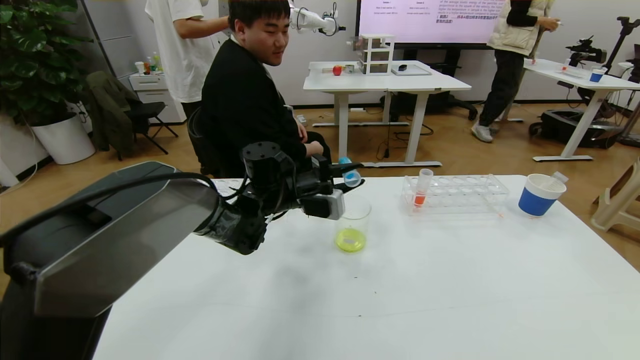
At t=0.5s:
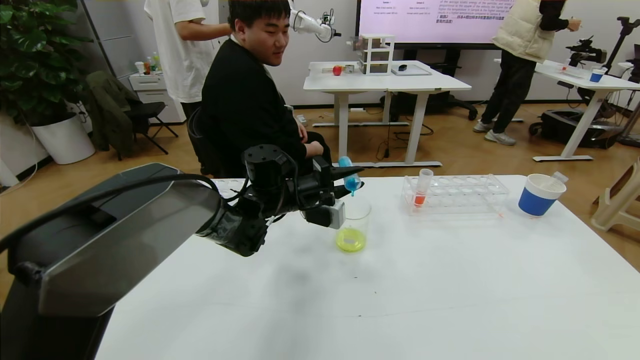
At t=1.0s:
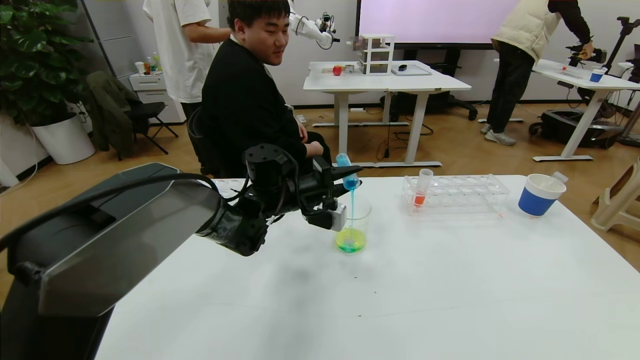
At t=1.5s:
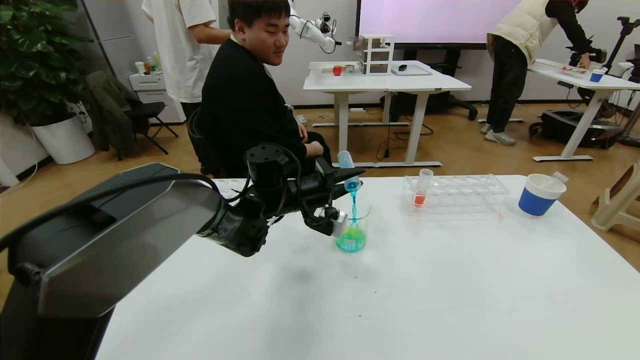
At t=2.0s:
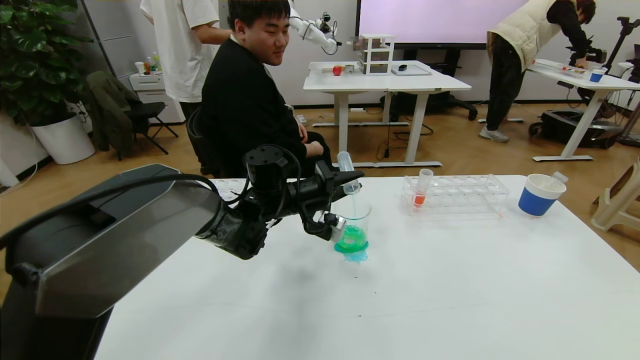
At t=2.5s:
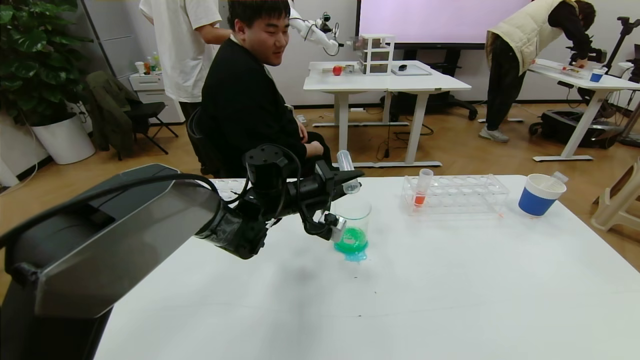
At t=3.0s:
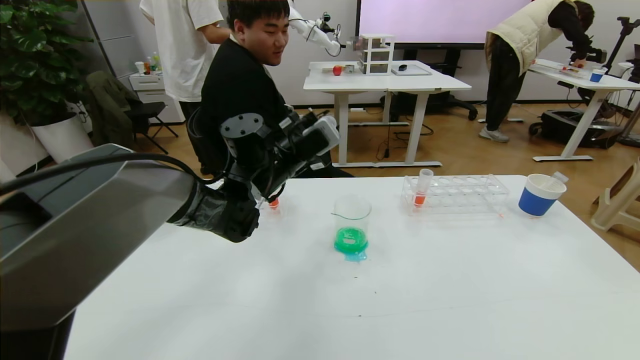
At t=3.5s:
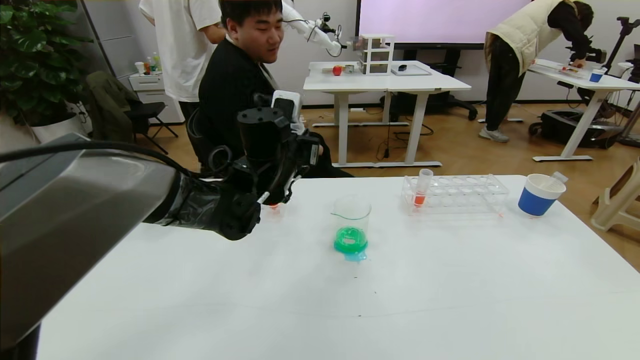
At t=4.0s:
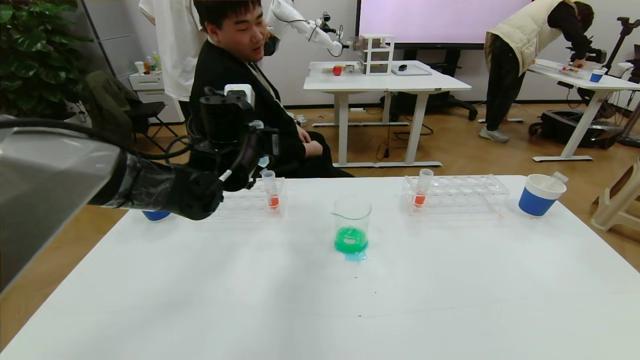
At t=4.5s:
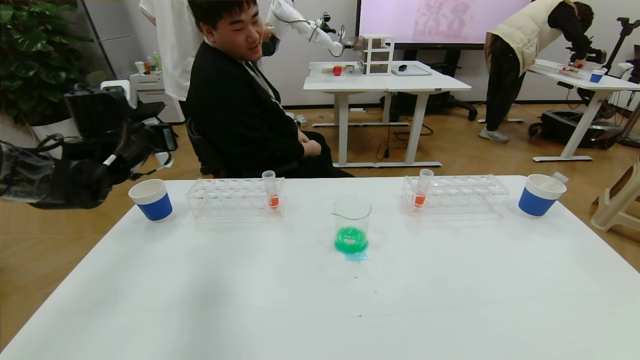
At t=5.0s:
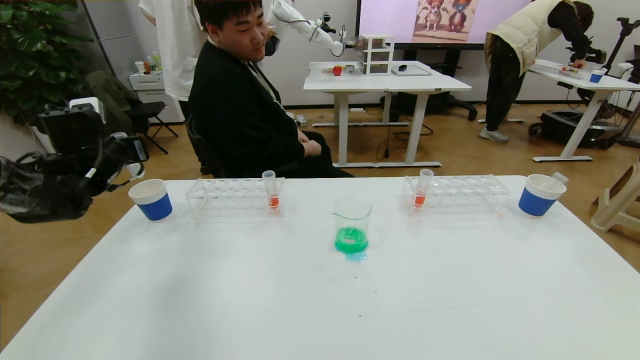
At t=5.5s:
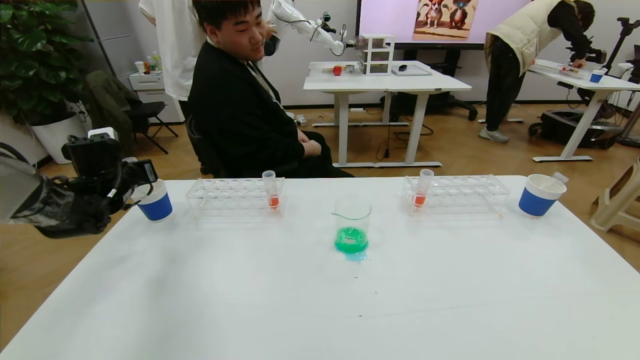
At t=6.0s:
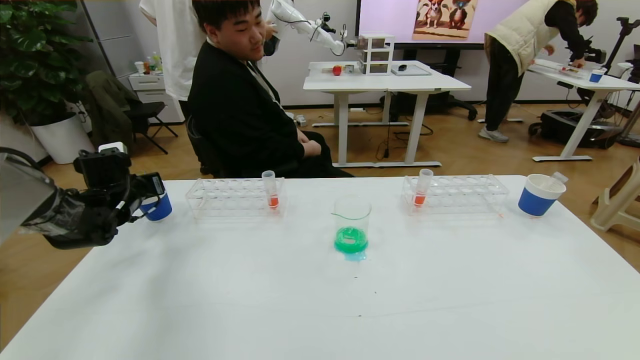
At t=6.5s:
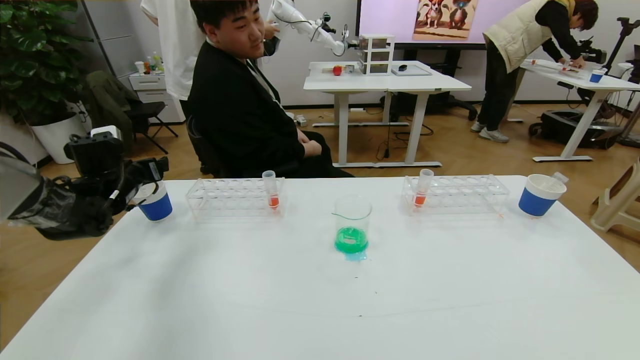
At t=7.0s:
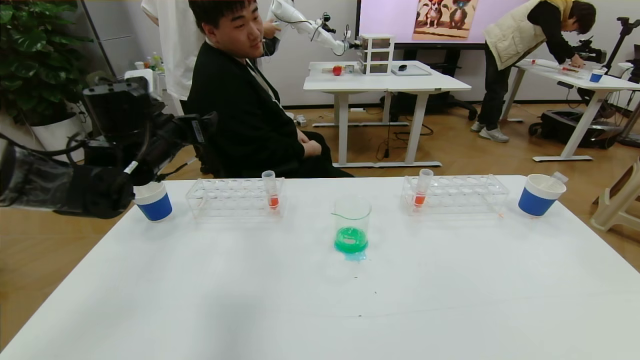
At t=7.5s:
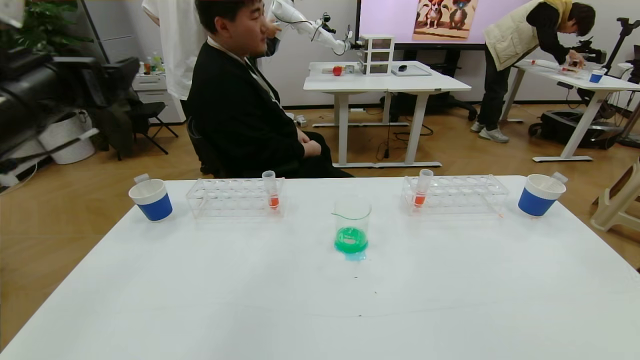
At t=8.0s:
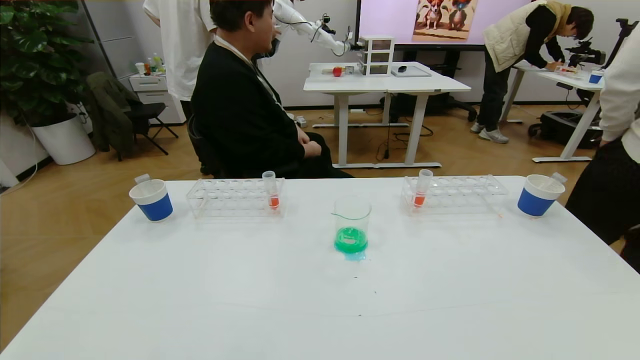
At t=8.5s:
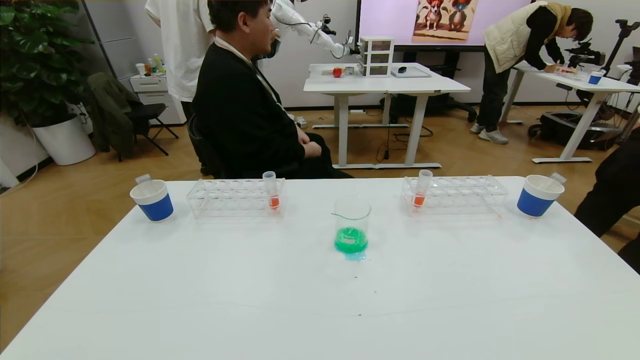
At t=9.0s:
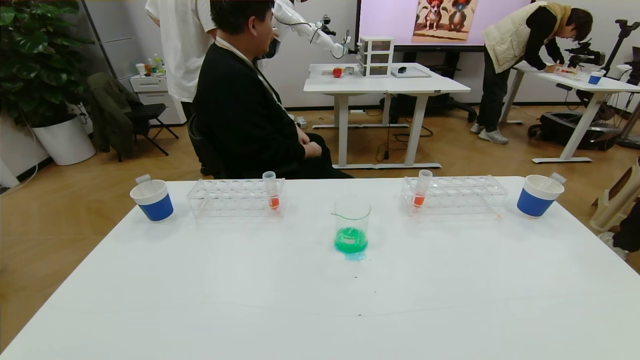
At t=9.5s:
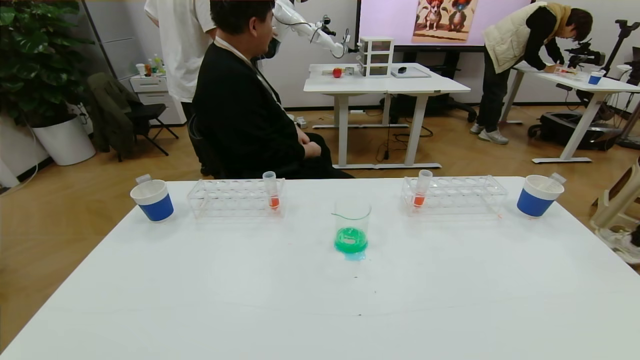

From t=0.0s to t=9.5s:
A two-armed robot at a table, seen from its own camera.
Task of the whole recording: pick up the test tube with yellow pigment and the test tube with blue pigment by grippers and pour them into the beaker.
Step, from t=0.0s to t=9.5s: Pour the blue reagent into the graduated cylinder and place the test tube into the paper cup.
From t=2.0s to t=4.0s: The left gripper shifts roughly 10 cm upward and to the left.
From t=4.0s to t=5.5s: The left gripper heads to the left, covering about 25 cm.
From t=5.5s to t=7.5s: The left gripper heads upward, backward and to the right, covering some 30 cm, and opens its fingers.
From t=7.5s to t=9.5s: The left gripper moves backward and downward, about 35 cm.
